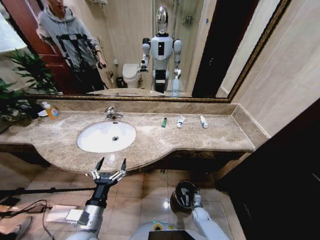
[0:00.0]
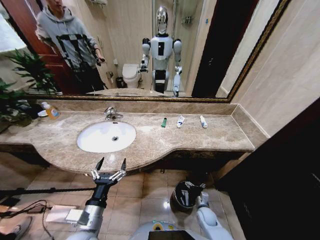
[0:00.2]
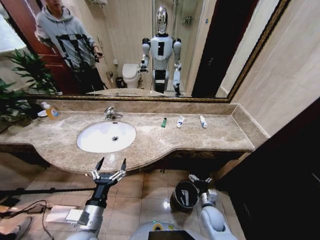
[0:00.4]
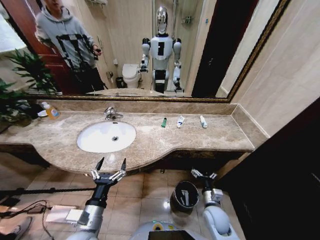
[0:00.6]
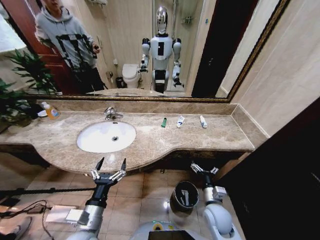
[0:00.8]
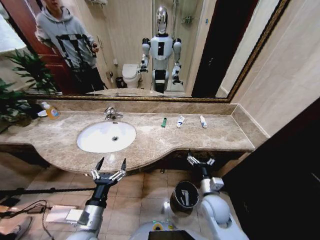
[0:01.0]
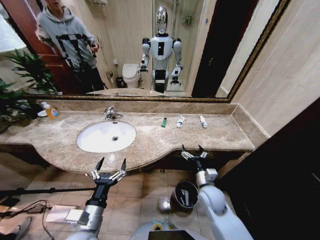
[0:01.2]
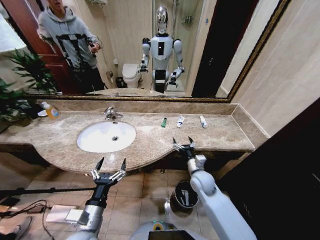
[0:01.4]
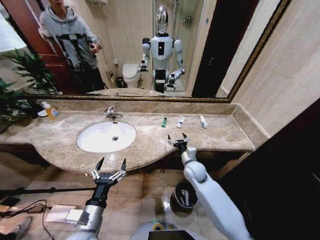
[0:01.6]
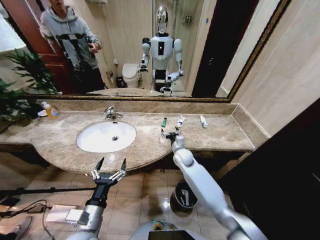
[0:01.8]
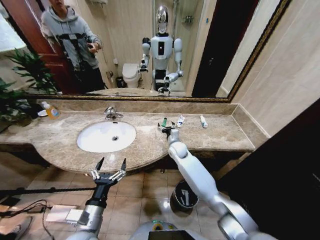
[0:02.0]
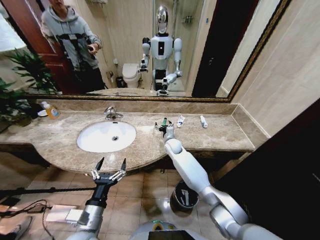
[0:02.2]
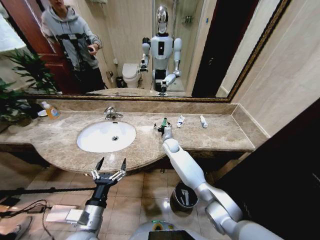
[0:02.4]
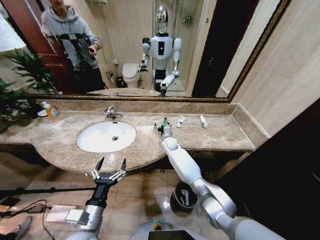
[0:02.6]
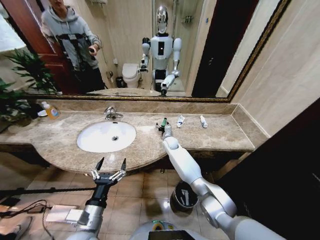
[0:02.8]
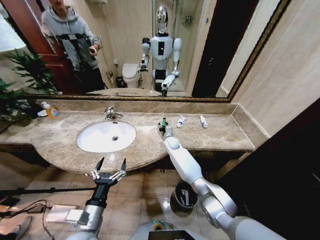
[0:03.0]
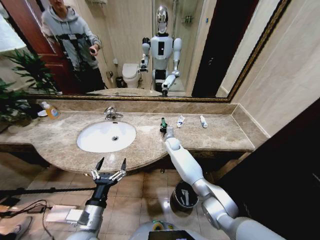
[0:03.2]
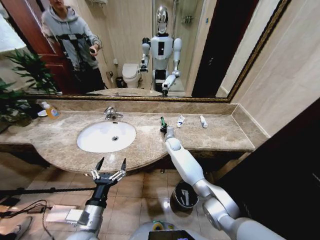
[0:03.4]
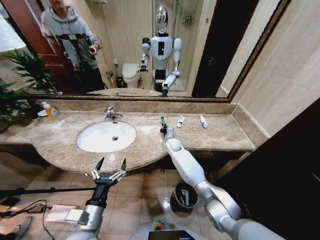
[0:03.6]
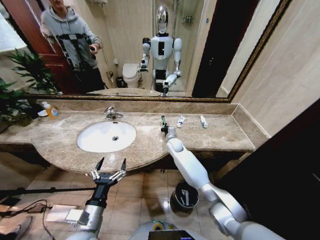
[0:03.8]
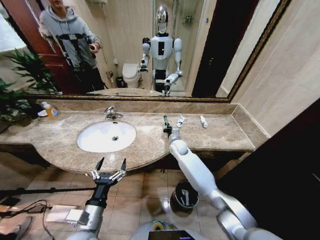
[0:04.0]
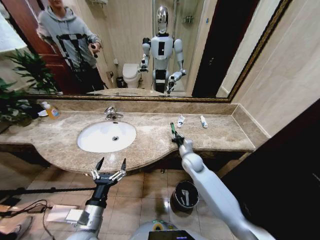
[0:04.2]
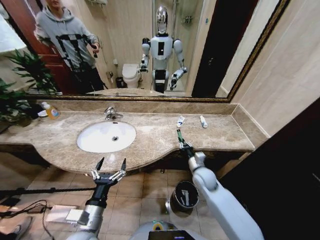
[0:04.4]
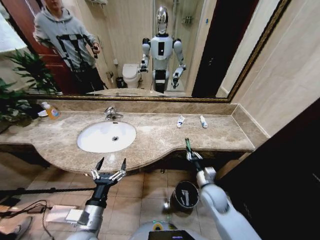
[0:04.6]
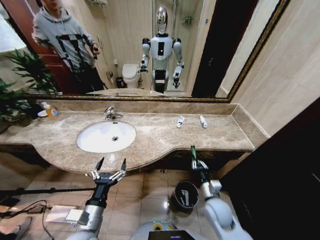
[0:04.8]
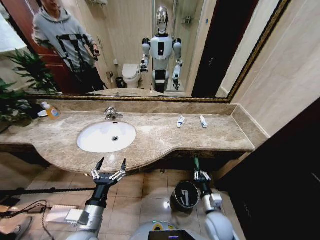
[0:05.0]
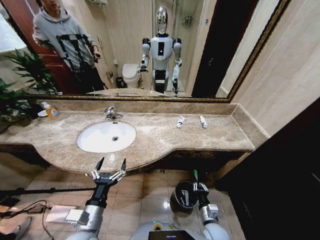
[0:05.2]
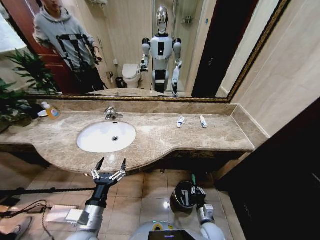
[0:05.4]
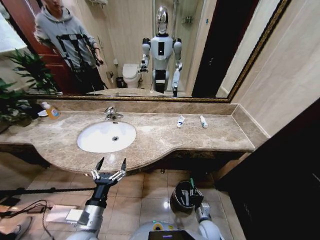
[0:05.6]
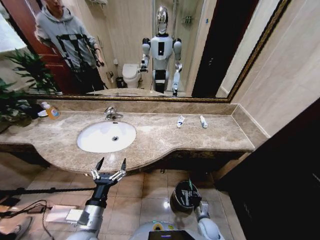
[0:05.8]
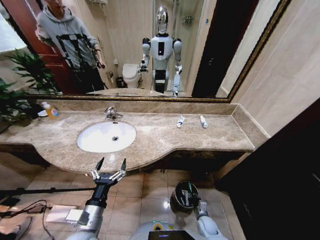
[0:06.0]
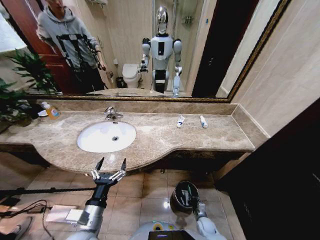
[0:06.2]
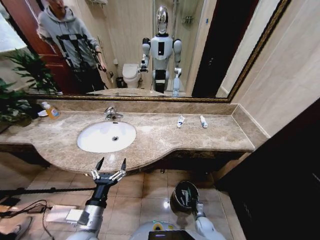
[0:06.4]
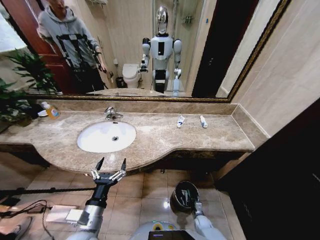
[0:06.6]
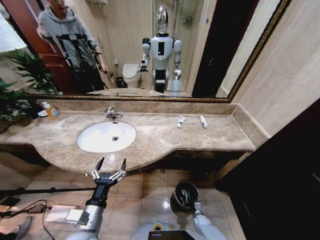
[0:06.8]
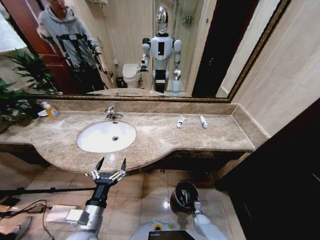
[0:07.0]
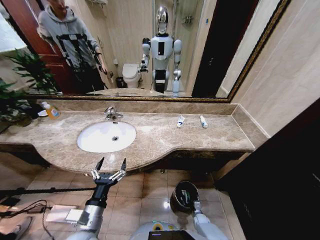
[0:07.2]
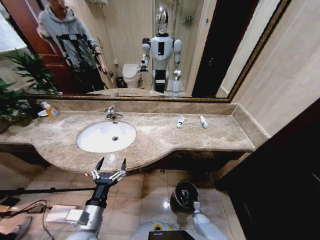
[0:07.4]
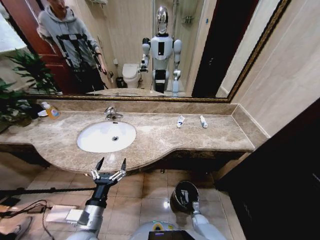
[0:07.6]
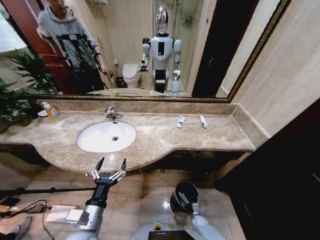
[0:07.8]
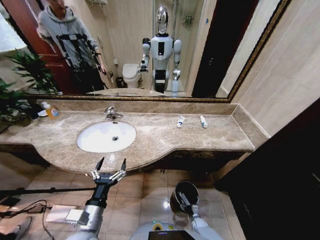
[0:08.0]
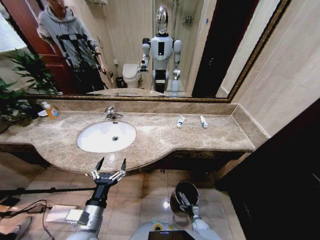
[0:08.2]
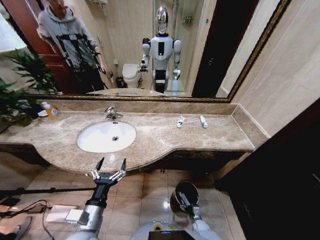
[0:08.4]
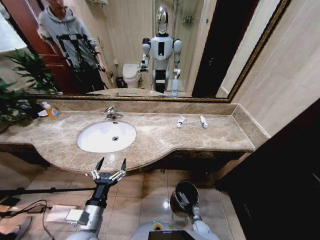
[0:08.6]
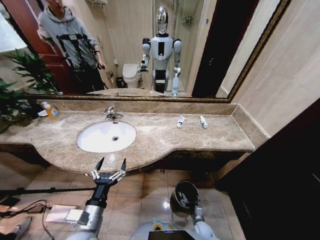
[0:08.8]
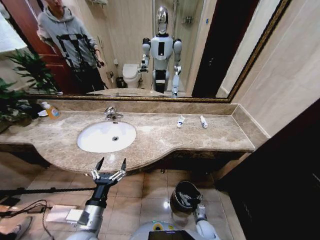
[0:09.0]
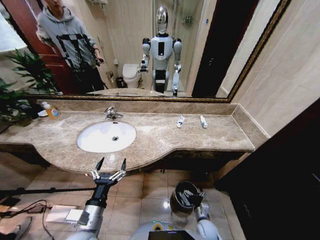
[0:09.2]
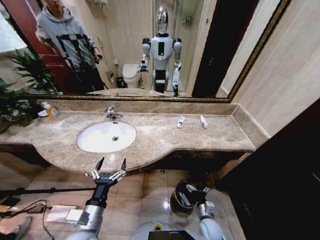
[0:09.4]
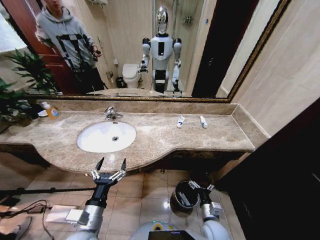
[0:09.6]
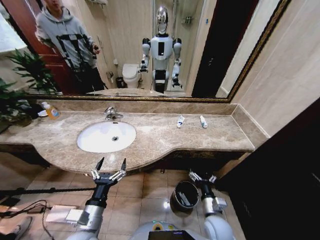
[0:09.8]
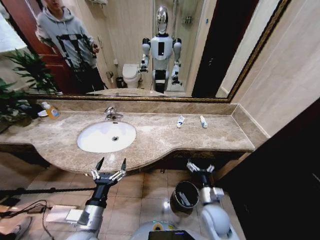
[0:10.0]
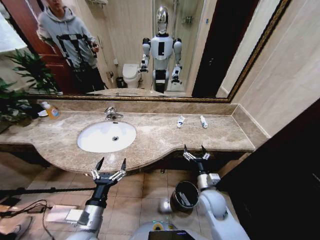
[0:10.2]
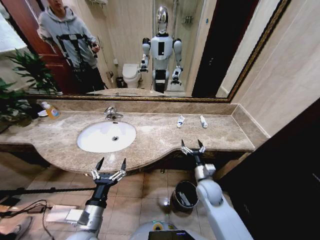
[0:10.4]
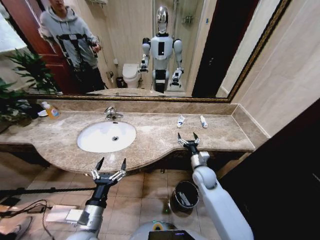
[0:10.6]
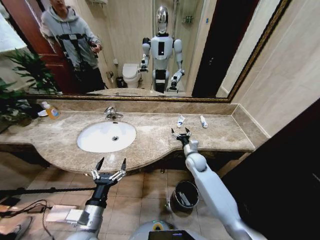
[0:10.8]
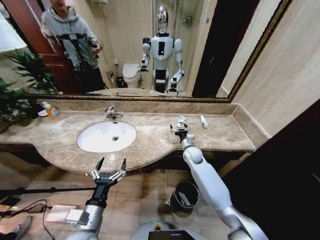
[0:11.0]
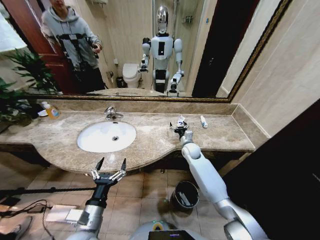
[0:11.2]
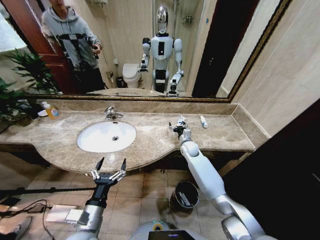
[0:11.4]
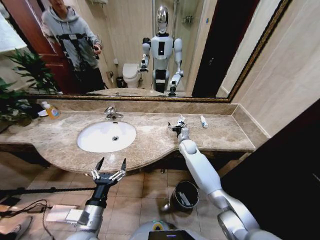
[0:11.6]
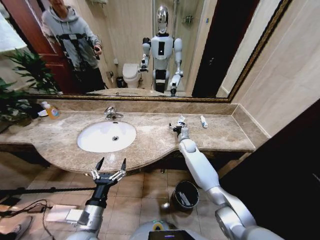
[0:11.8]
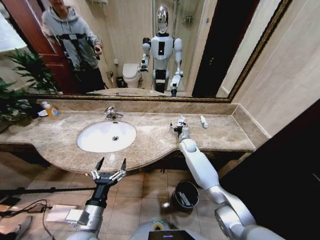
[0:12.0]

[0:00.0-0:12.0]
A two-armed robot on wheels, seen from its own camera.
Task of the whole recording: Pick up the trash from the sink and place it in the trash bin.
0:00.0 to 0:01.6: The right gripper shifts approximately 35 cm upward and forward.
0:01.6 to 0:03.0: The right gripper shifts some 20 cm forward and to the left.
0:03.0 to 0:04.4: The right gripper is displaced backward and to the right by roughly 25 cm, and closes.
0:04.4 to 0:06.0: The right gripper is displaced downward and backward by roughly 30 cm.
0:06.0 to 0:07.6: The right gripper moves downward, approximately 10 cm.
0:07.6 to 0:09.0: The right gripper heads upward, covering roughly 10 cm, and opens up.
0:09.0 to 0:10.4: The right gripper heads upward and forward, covering about 30 cm.
0:10.4 to 0:12.0: The right gripper goes about 25 cm forward.

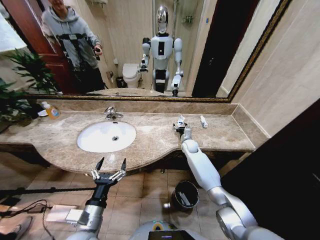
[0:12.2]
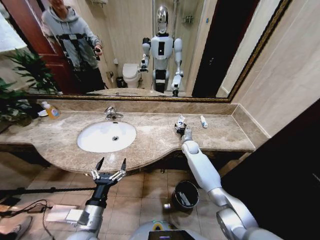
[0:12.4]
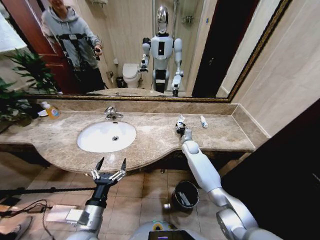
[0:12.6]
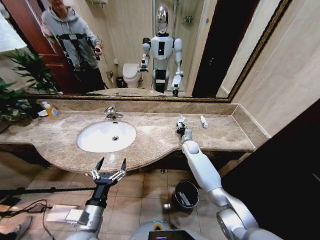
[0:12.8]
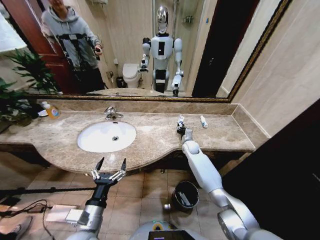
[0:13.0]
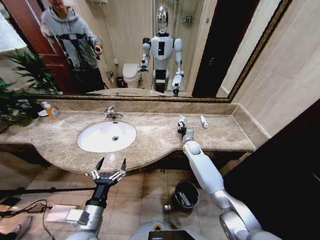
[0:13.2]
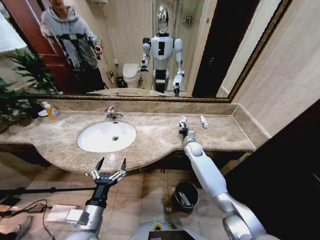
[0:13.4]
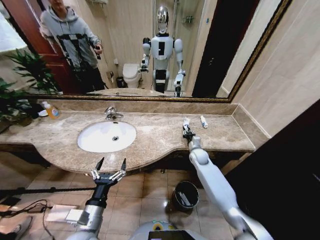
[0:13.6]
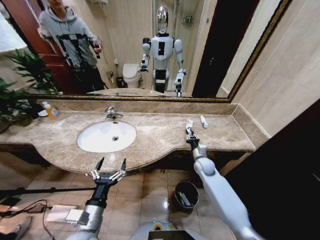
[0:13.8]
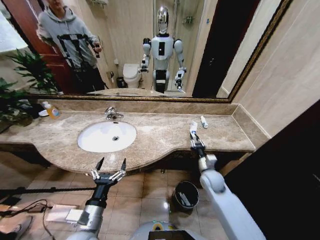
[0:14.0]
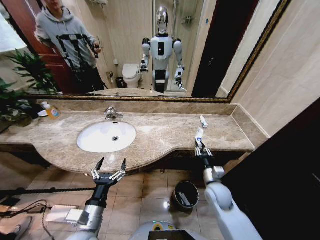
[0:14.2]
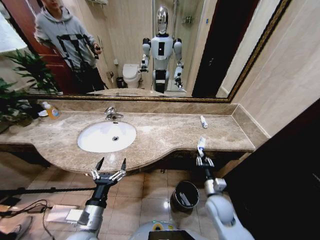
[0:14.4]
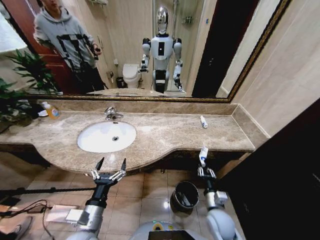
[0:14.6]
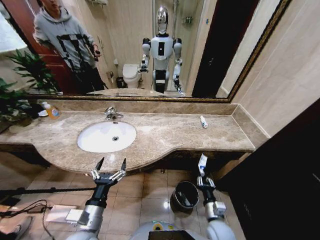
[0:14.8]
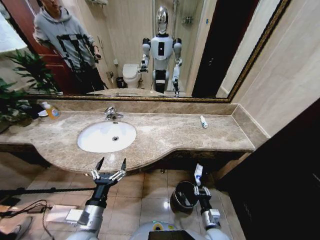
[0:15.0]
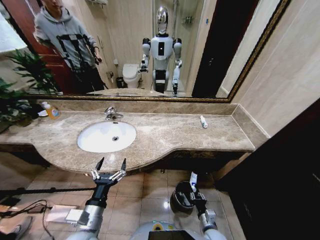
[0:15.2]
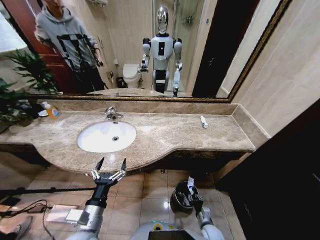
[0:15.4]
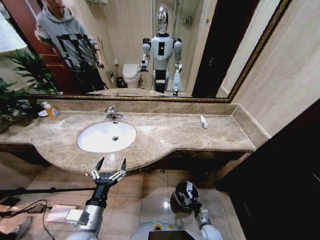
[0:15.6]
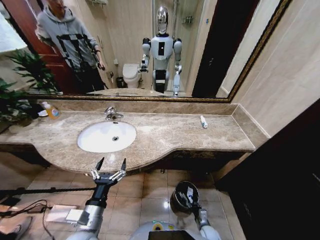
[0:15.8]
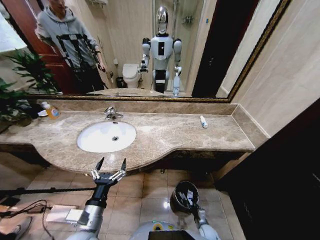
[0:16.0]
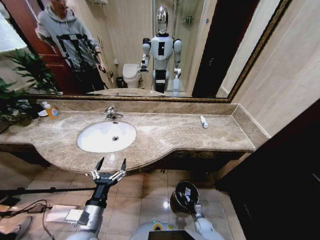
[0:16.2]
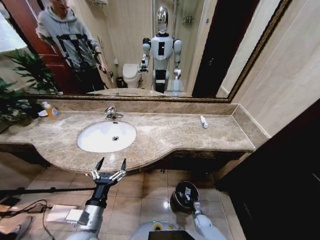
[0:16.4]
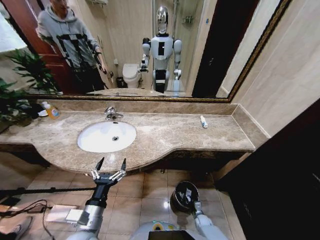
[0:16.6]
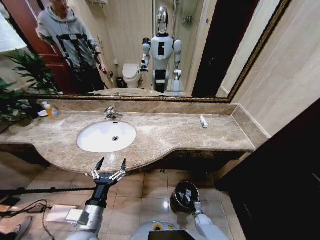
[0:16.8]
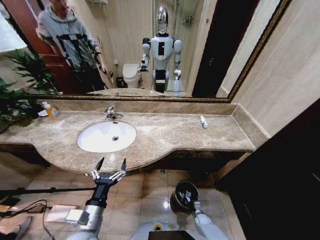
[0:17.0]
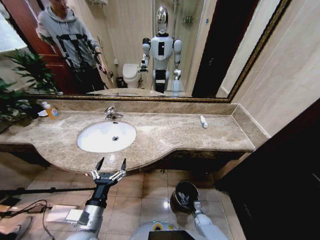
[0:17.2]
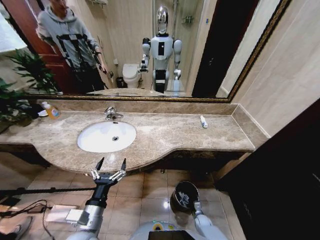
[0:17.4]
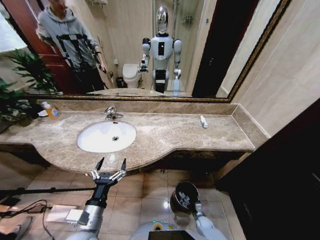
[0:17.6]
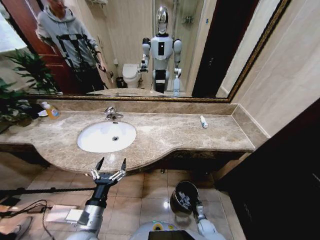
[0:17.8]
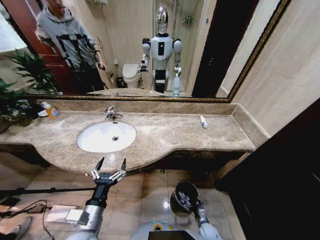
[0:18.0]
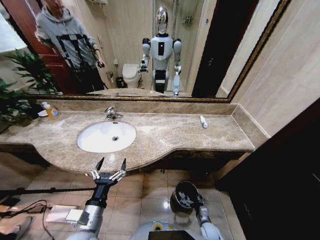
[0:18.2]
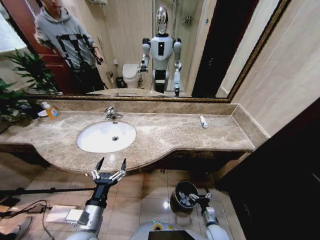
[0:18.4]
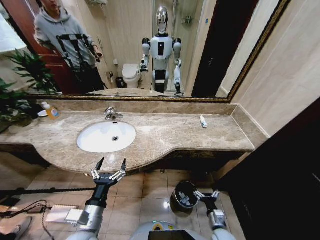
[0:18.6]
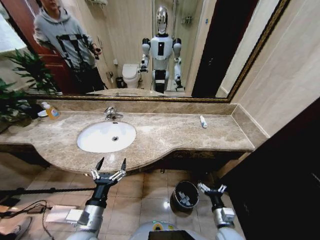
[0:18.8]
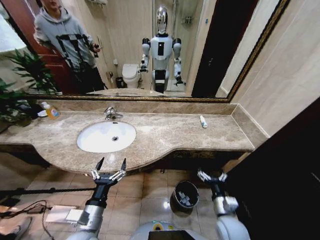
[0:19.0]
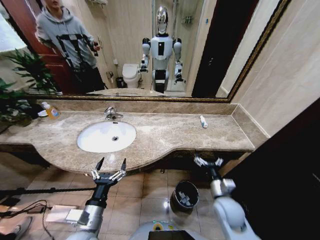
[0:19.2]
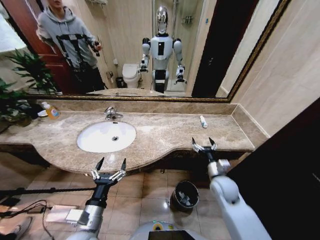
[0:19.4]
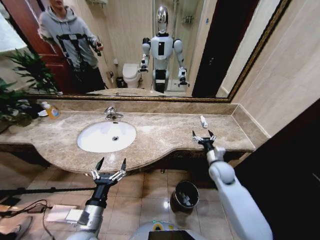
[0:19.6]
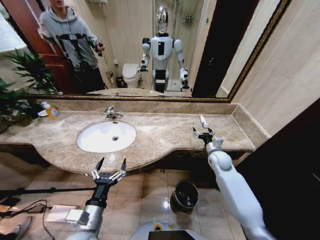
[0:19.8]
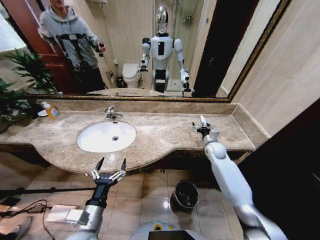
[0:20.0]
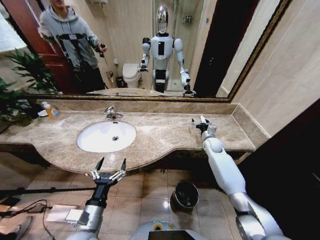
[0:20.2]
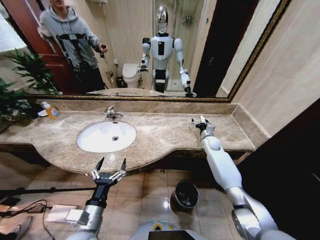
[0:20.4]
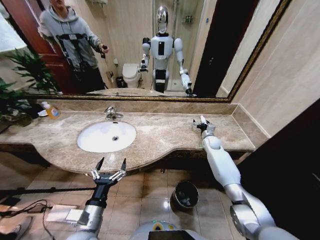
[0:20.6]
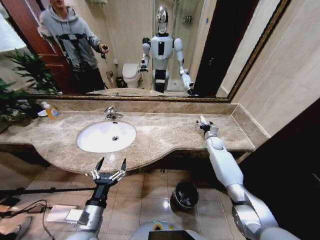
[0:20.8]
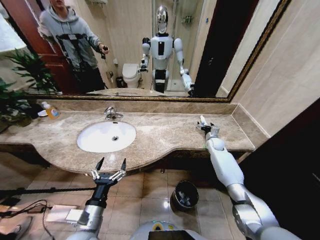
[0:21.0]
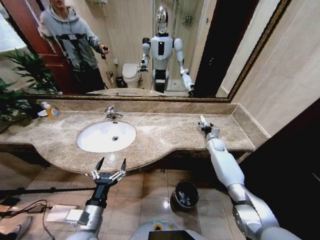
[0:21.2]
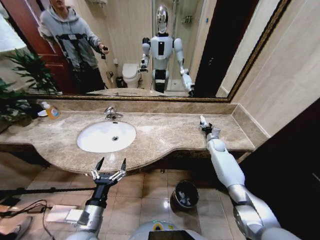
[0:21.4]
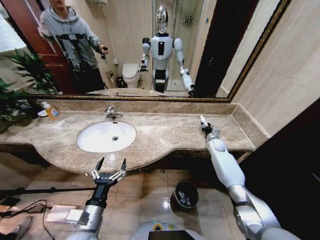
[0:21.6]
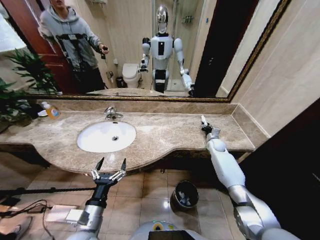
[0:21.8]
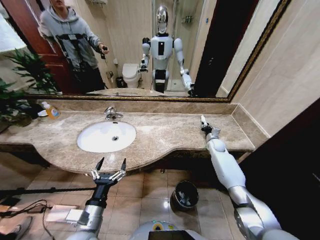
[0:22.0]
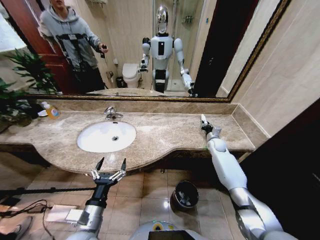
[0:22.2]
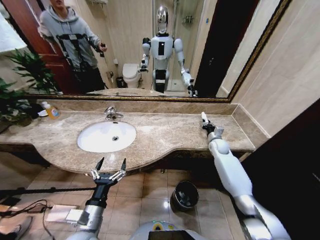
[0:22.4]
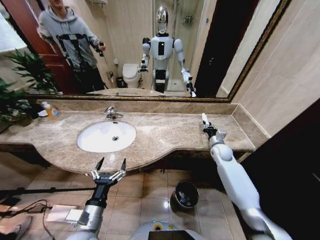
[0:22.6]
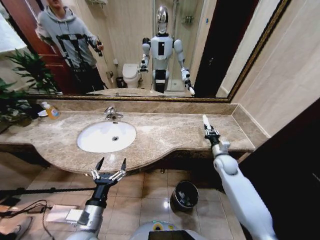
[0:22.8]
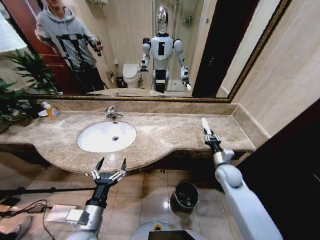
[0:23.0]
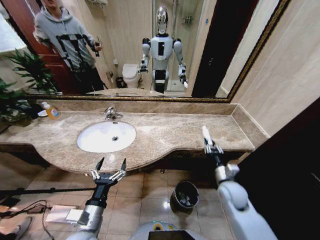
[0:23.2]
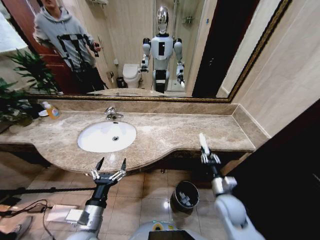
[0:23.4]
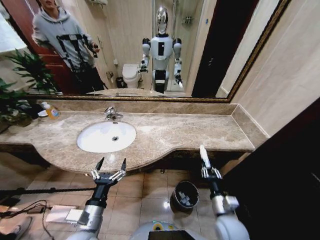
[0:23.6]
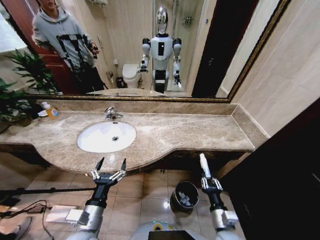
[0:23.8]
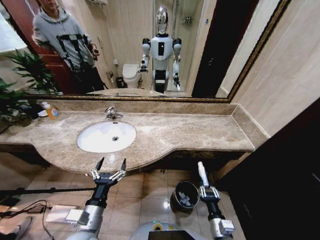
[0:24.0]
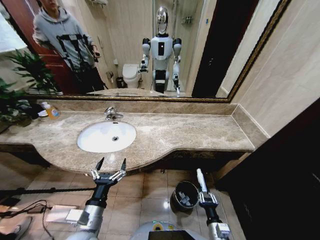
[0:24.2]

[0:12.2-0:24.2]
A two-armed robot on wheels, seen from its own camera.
Task of the whole recording: Pick up the trash from the sink and place it in the trash bin.
0:12.2 to 0:13.8: The right gripper travels backward by some 10 cm, and closes.
0:13.8 to 0:15.2: The right gripper is displaced backward and downward by about 30 cm.
0:15.2 to 0:16.6: The right gripper moves downward and forward, some 20 cm.
0:16.6 to 0:18.2: The right gripper heads upward, covering approximately 10 cm, and opens its fingers.
0:18.2 to 0:19.8: The right gripper moves upward and forward, roughly 40 cm.
0:19.8 to 0:21.2: The right gripper travels forward and to the right by approximately 15 cm.
0:21.2 to 0:22.6: The right gripper heads backward, covering roughly 10 cm, and closes.
0:22.6 to 0:24.2: The right gripper goes roughly 40 cm backward.
